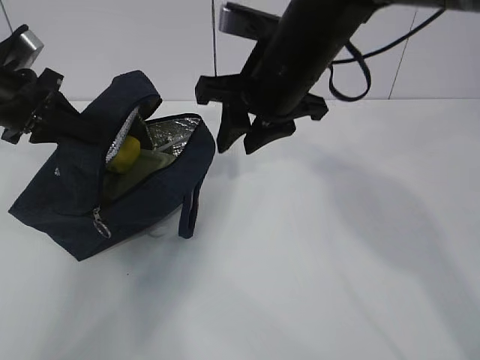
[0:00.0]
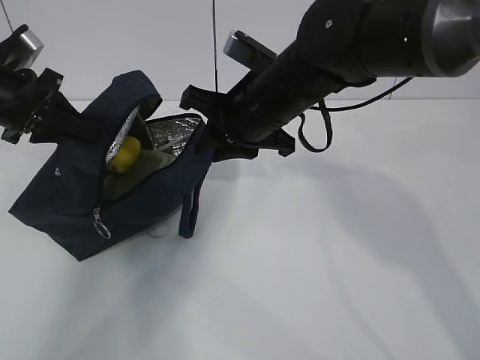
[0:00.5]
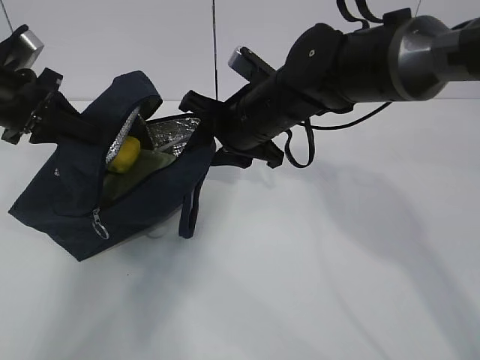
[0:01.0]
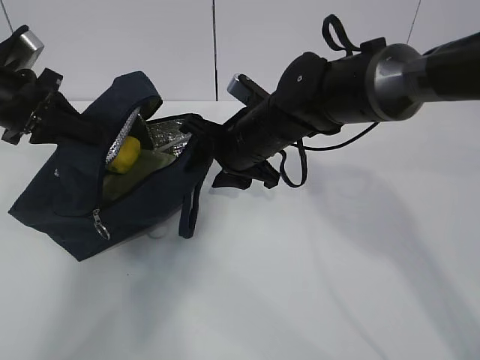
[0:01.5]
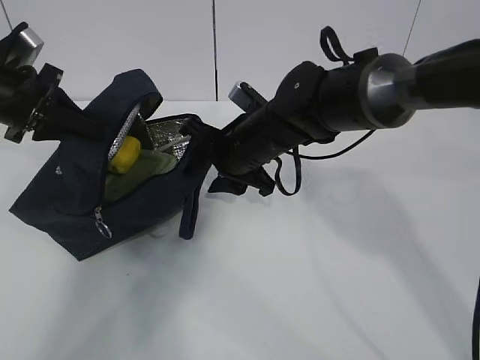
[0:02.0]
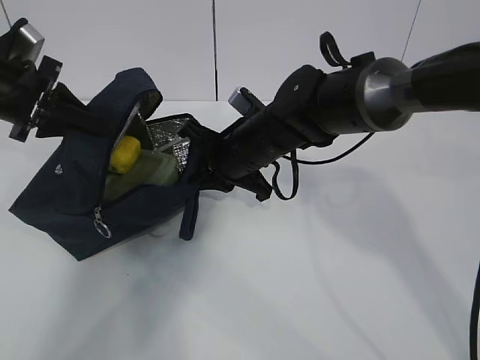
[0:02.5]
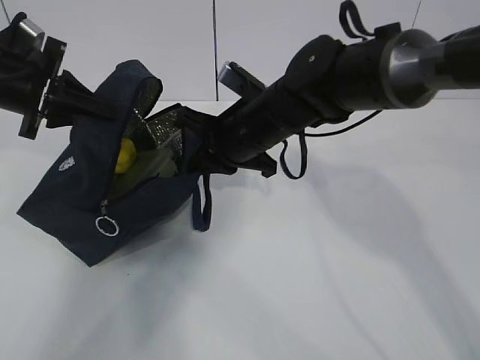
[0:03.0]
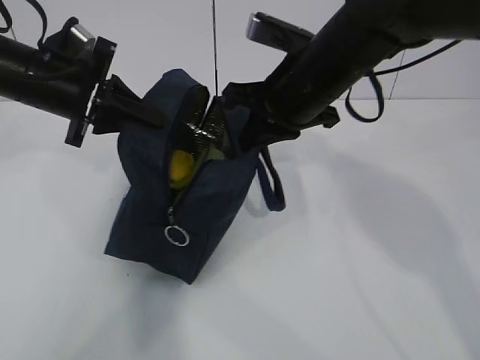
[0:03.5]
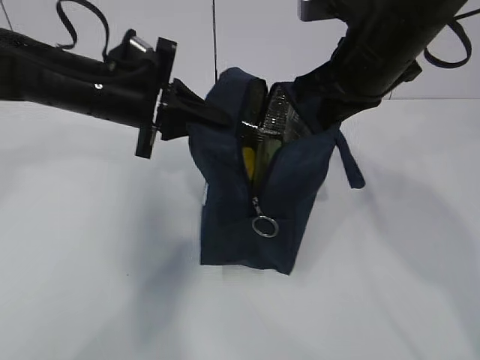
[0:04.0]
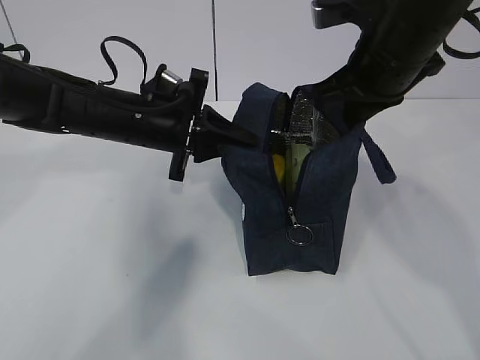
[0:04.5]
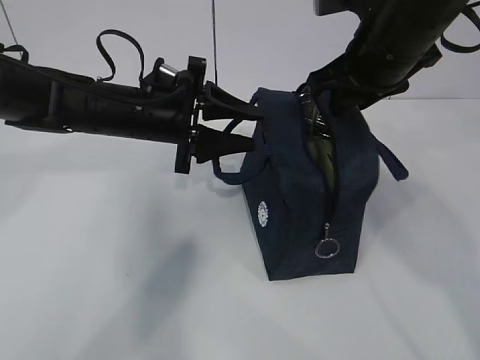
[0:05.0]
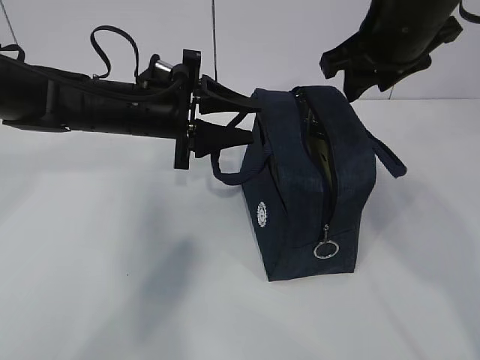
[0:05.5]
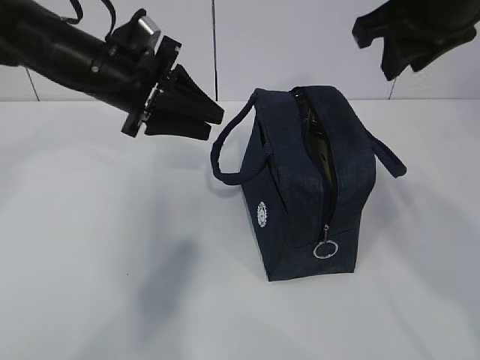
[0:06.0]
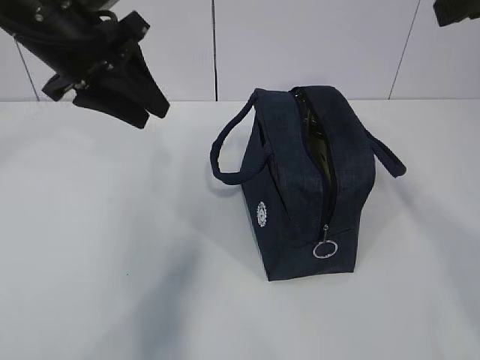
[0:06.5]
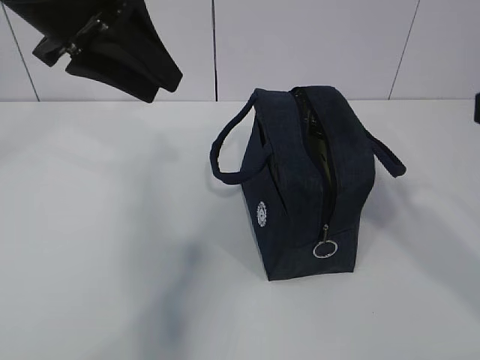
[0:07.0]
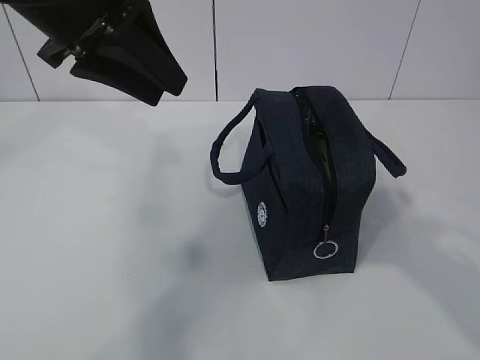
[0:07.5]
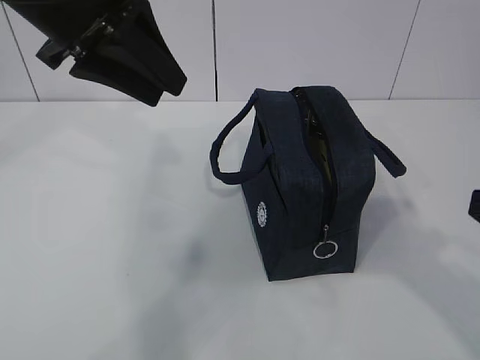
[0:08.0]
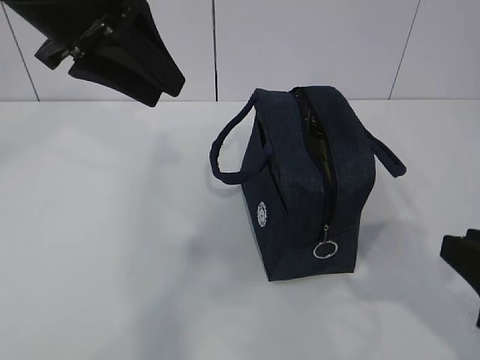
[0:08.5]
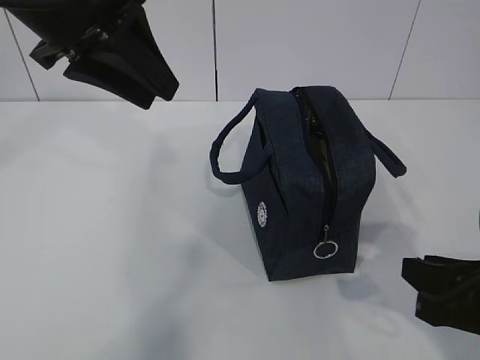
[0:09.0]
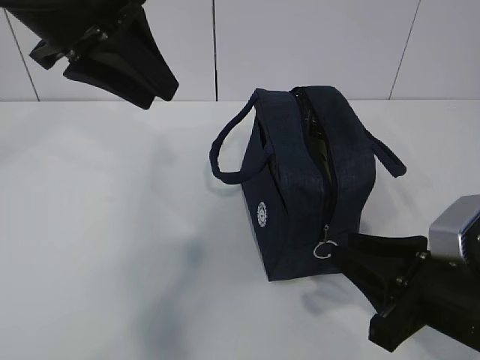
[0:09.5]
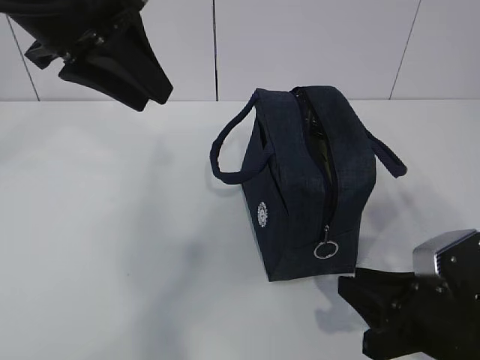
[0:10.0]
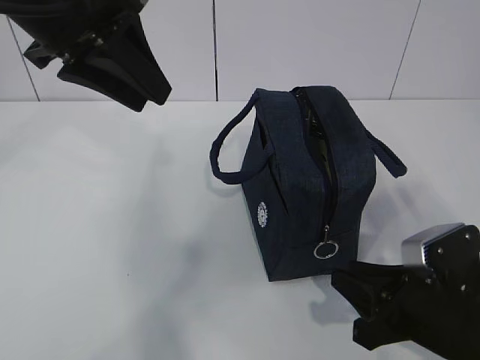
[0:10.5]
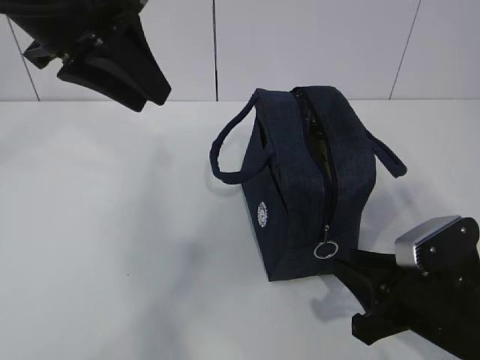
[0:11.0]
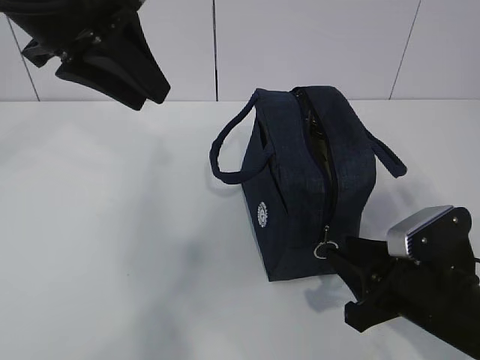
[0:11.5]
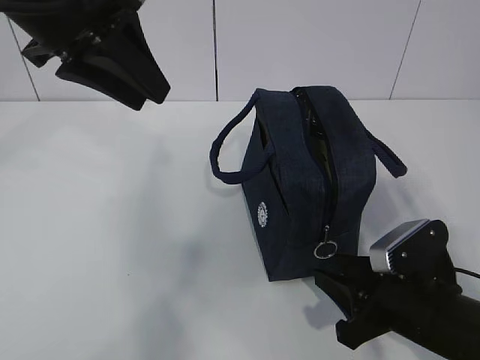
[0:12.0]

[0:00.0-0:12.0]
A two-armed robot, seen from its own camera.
0:00.0 to 0:02.0: The right gripper goes about 10 cm downward.
0:02.0 to 0:04.0: The left gripper is displaced to the right by roughly 15 cm; the right gripper is displaced upward and to the right by about 15 cm, and closes up.
0:04.0 to 0:06.0: The right gripper moves upward, some 5 cm, and opens its fingers, while the left gripper opens its fingers.
0:06.0 to 0:08.0: The left gripper heads upward and backward, covering some 15 cm. Meanwhile the right gripper heads backward and downward, covering approximately 25 cm.
0:08.0 to 0:10.0: The right gripper travels downward by roughly 15 cm.
0:10.0 to 0:12.0: The grippers stay close to where they were, moving slightly.

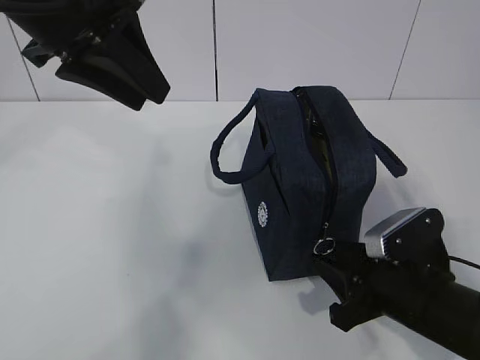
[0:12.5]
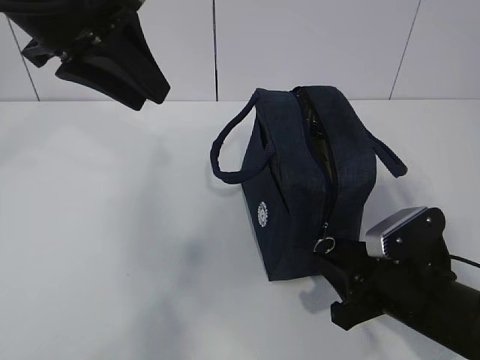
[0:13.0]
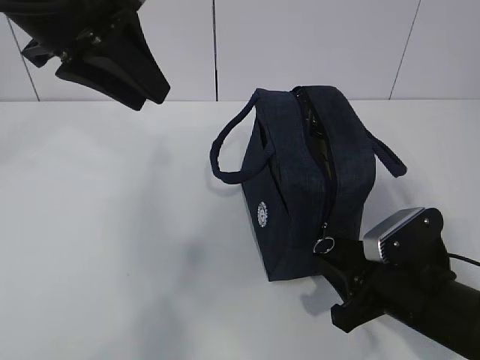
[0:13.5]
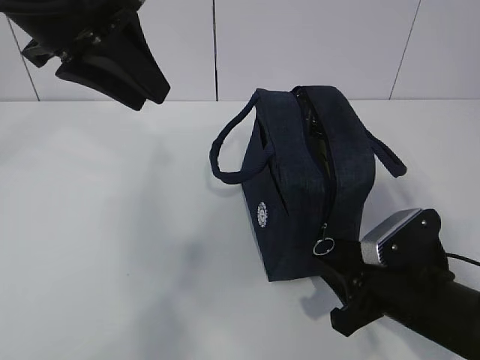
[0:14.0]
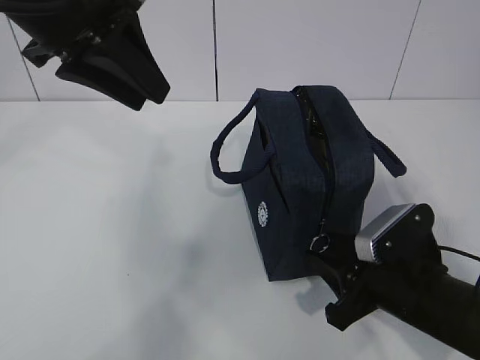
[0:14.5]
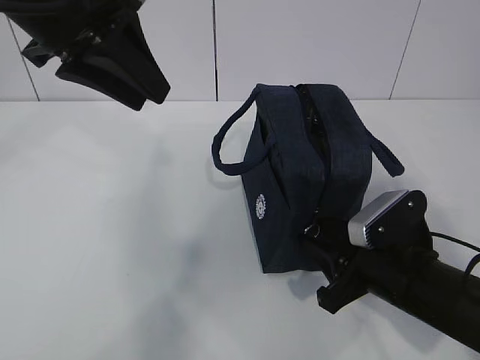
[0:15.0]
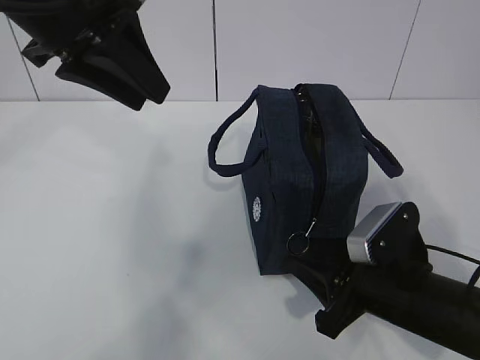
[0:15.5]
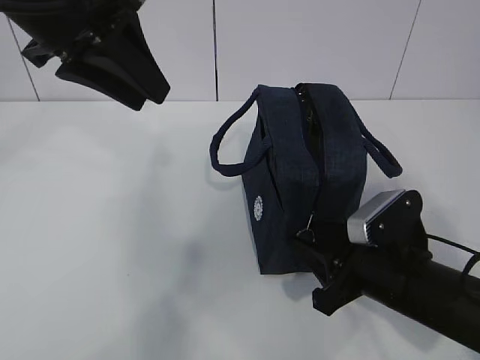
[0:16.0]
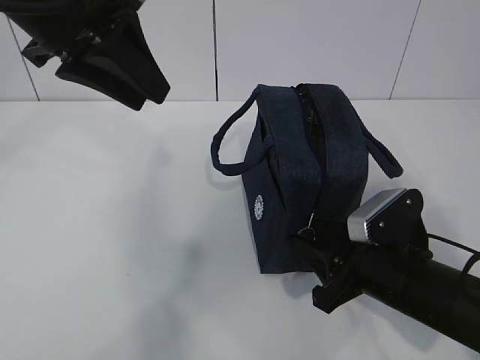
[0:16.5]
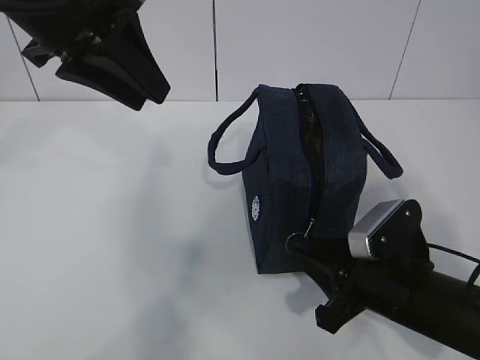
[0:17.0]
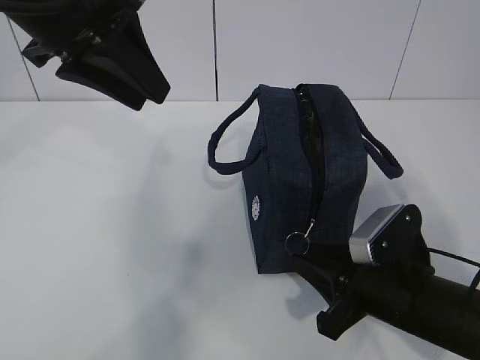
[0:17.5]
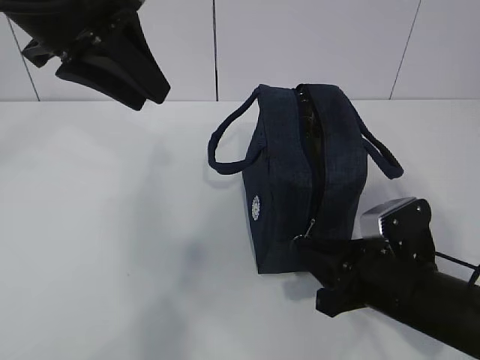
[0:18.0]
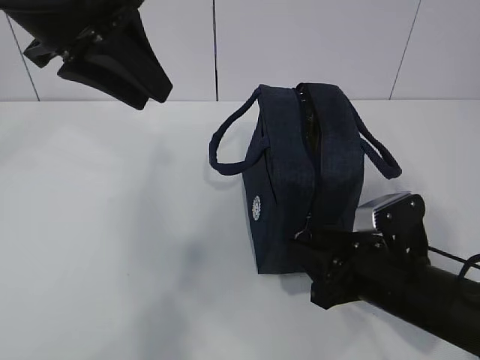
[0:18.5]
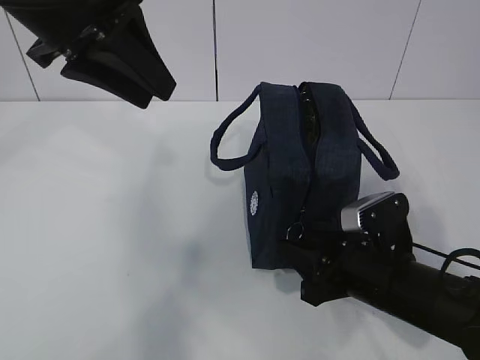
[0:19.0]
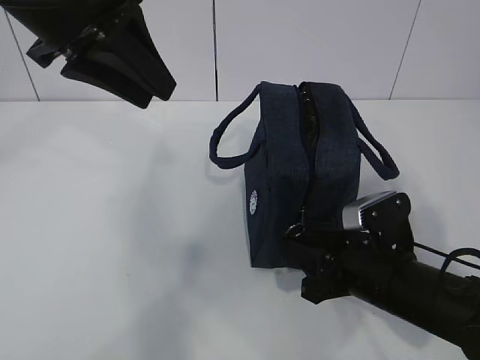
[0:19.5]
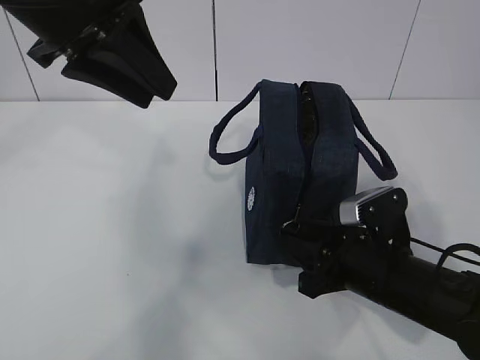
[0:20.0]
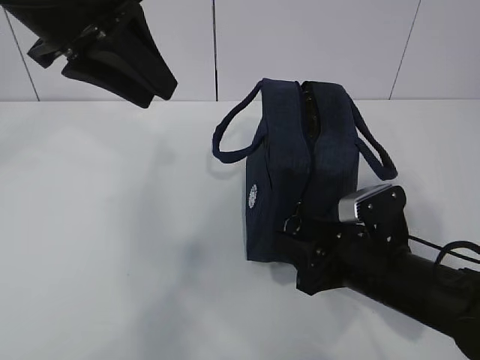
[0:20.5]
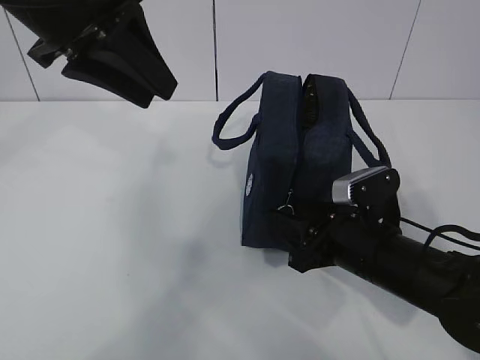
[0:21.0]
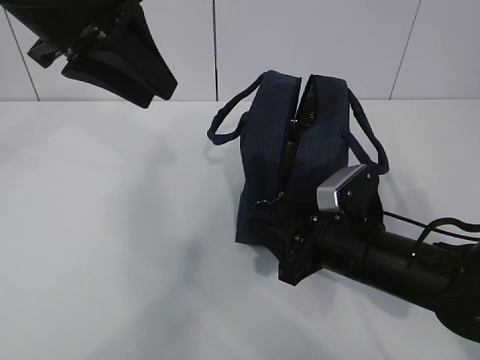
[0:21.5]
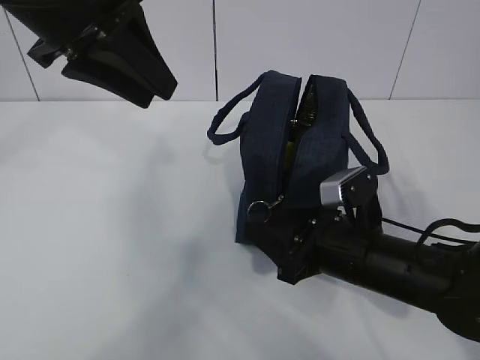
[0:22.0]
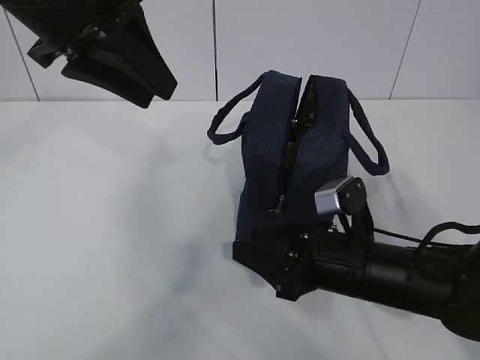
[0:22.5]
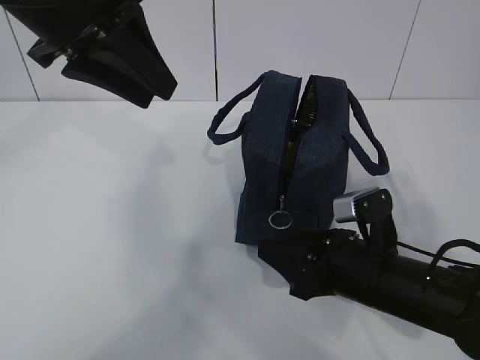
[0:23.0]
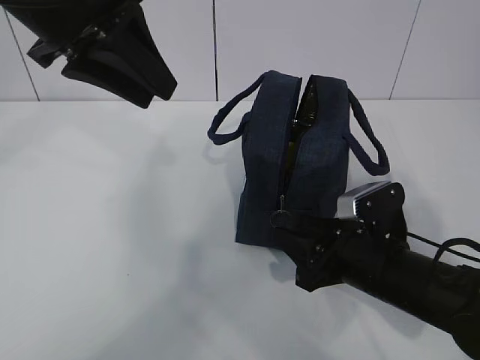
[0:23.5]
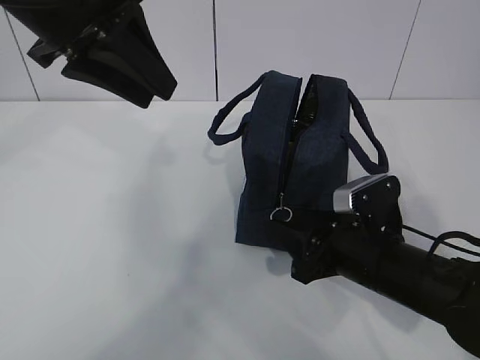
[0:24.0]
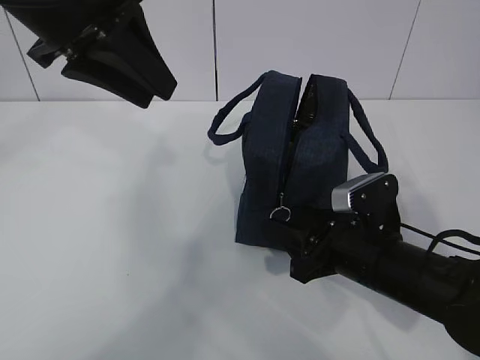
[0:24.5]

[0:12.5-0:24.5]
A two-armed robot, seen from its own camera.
0:12.5 to 0:20.5: There are only small adjustments of the grippers.
0:22.5 to 0:24.5: There are only small adjustments of the grippers.

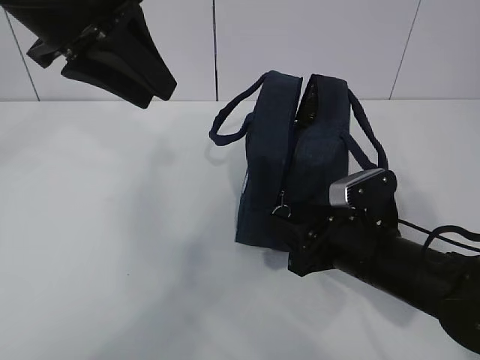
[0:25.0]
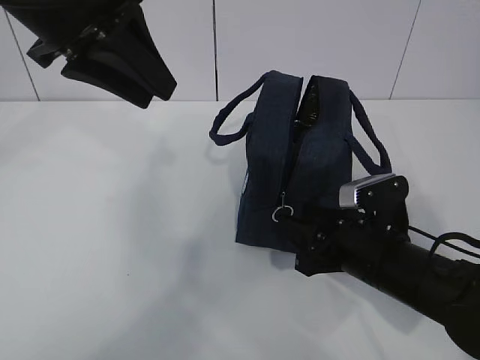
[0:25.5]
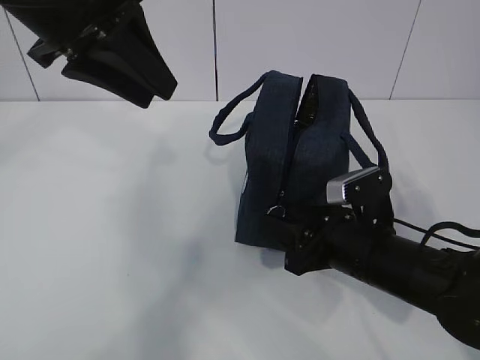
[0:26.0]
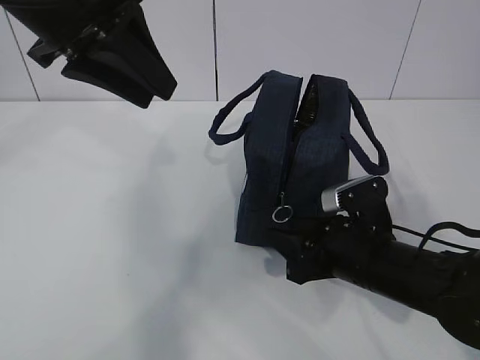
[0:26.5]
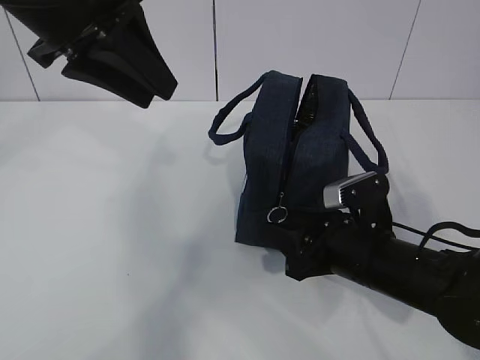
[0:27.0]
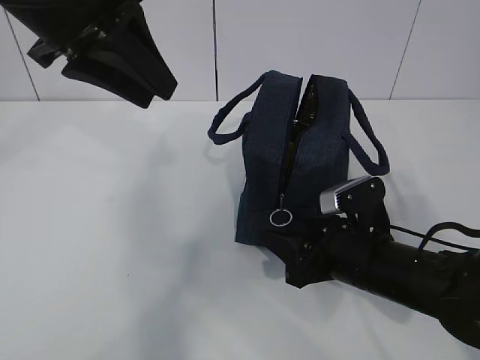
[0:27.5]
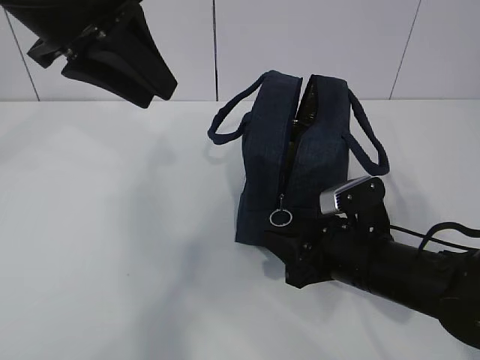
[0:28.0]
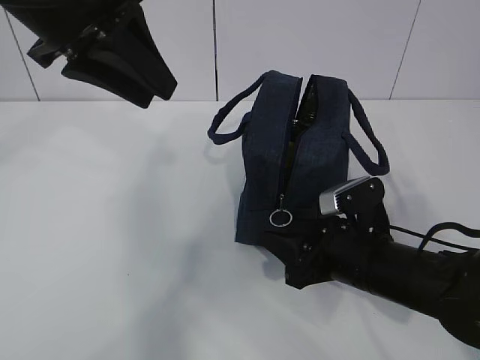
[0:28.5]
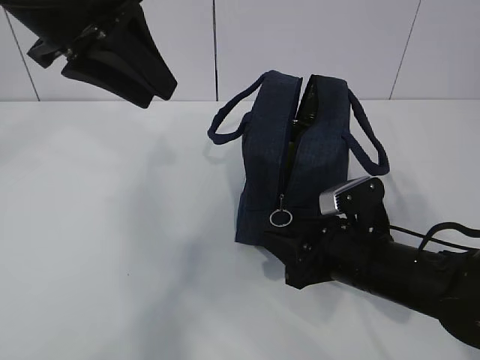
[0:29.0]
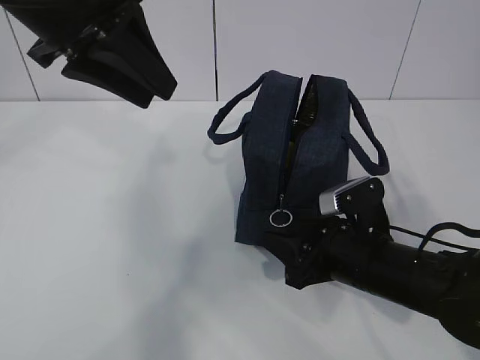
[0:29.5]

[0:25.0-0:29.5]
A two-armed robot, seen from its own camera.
0:25.0 to 0:27.0: The grippers make only small movements.
0:27.0 to 0:29.5: Neither gripper changes place.
